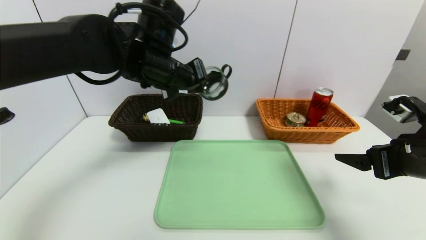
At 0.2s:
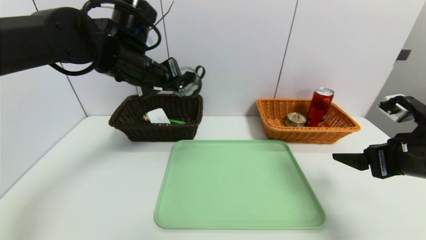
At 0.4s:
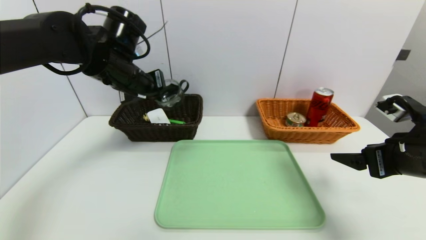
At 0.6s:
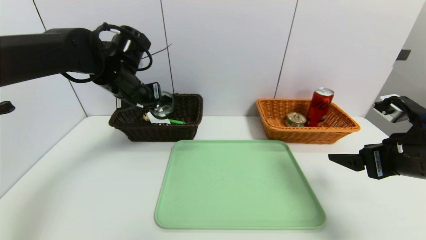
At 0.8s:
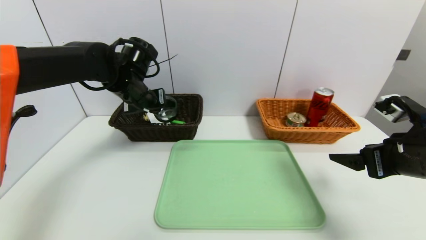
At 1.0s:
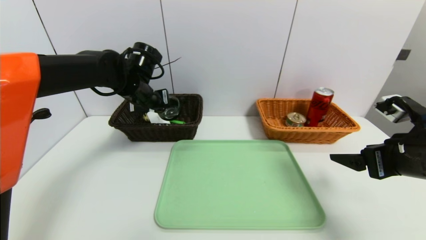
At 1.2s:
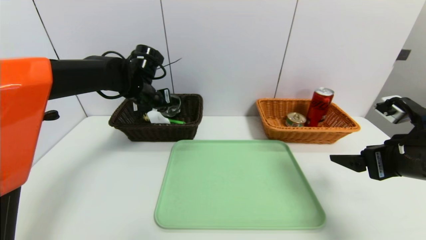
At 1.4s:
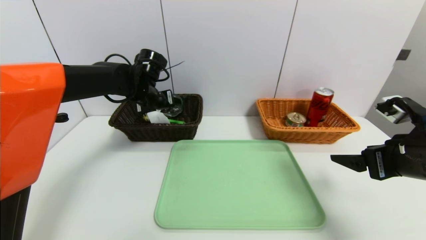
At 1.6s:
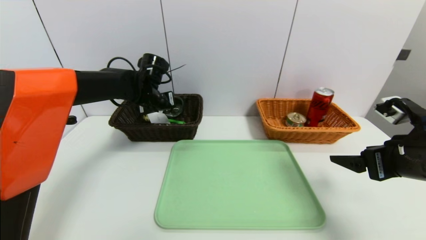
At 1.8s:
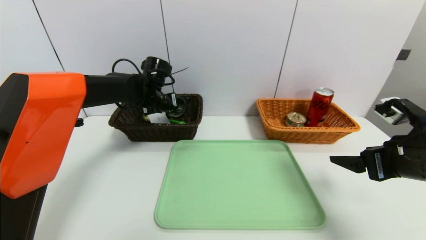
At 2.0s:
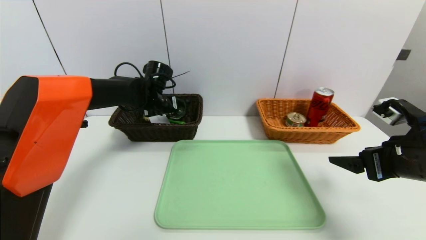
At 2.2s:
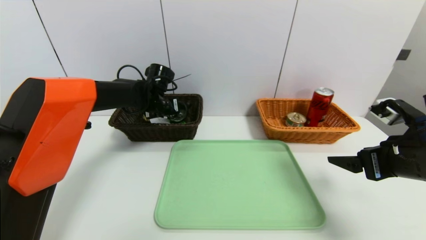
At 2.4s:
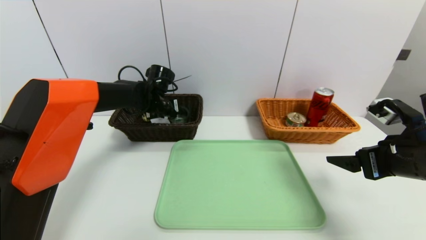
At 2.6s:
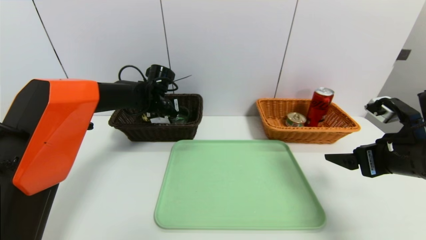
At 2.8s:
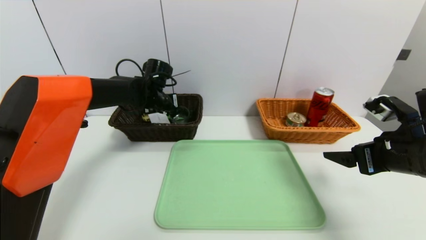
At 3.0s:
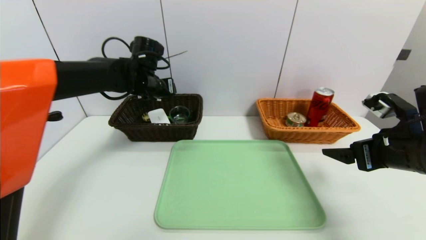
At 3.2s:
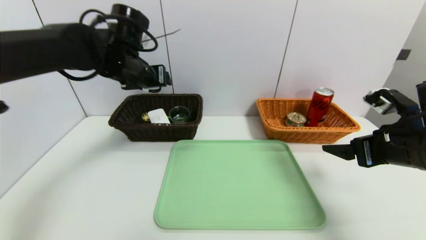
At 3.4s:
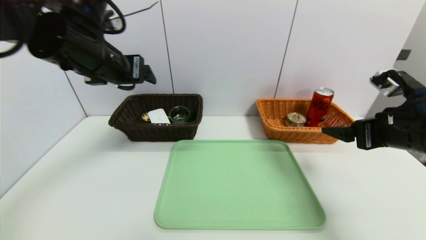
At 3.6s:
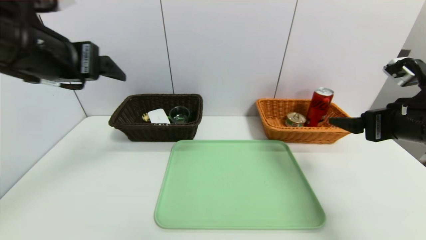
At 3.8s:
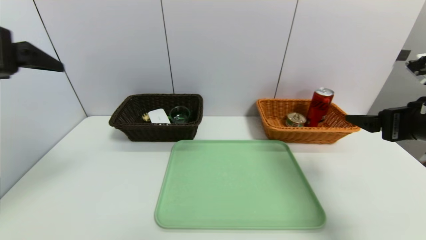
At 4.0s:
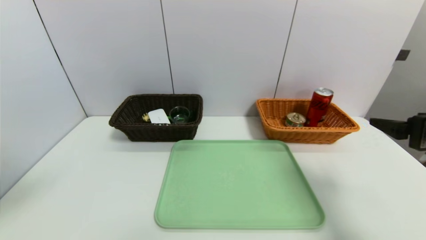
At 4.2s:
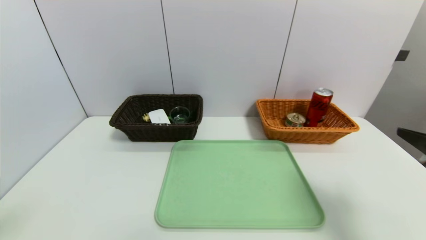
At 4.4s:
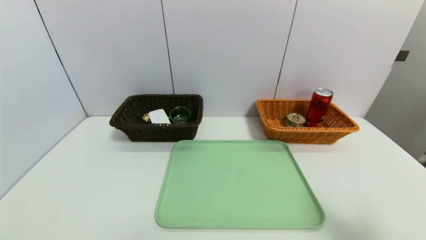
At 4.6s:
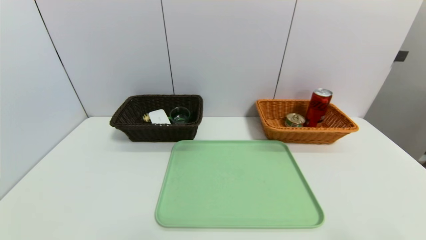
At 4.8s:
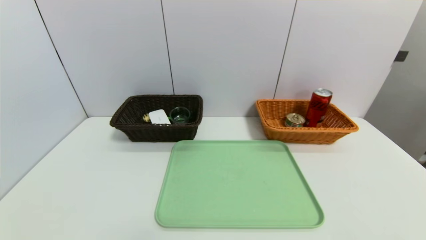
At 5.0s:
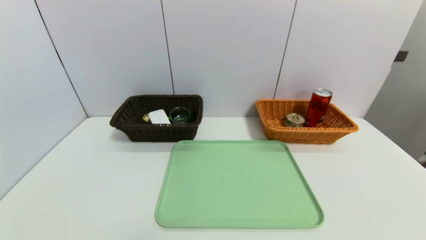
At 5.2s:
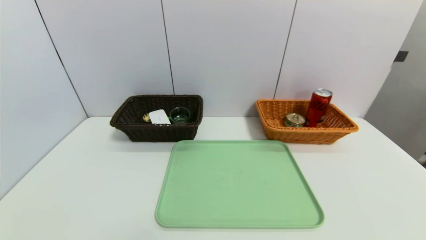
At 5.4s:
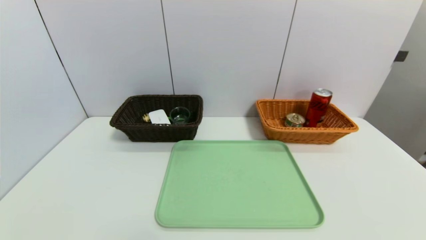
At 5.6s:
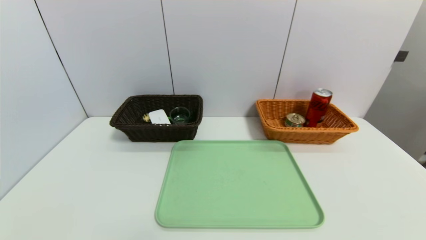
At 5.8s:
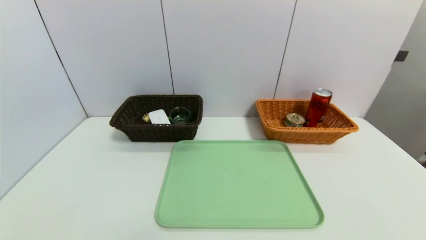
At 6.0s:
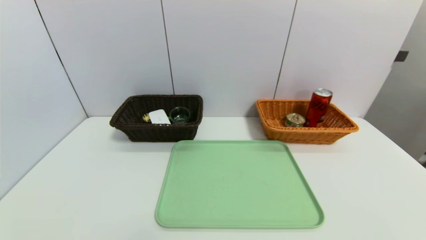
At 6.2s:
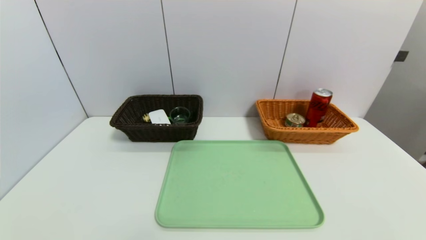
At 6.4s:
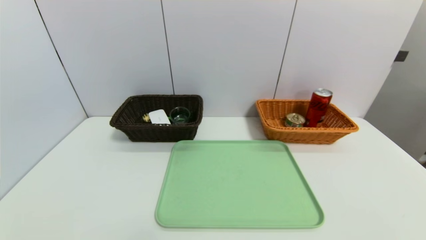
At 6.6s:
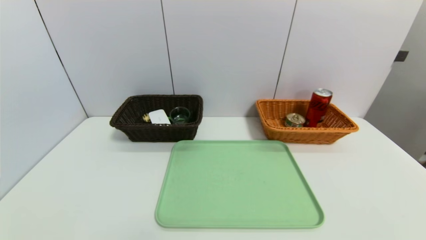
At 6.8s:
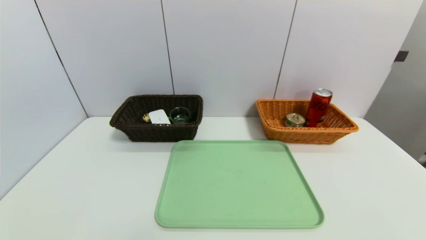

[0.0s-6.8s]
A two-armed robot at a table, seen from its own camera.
Task of the whole recording: place the food in the right basket with the right gripper, and place the non food items in the left basket with the left gripper.
Step, 0.0s to 3.0s: Grasp the black glass cup and put it in the left basket.
0.0s to 1.4s: The left gripper is displaced forward, downward and to the left by some 15 cm.
1.4s to 2.8s: The left gripper opens up.
2.8s to 4.0s: The right gripper moves upward, roughly 5 cm; the left gripper heads backward and upward, covering some 40 cm.
4.0s to 5.4s: The right gripper shifts about 25 cm backward and downward. The left gripper travels downward and backward by roughly 25 cm.

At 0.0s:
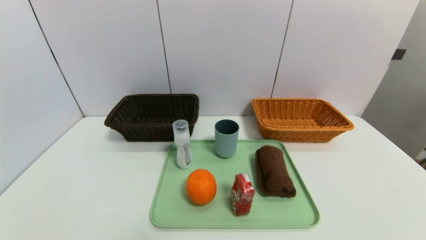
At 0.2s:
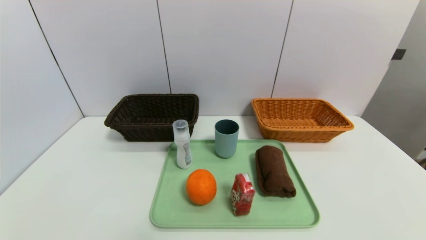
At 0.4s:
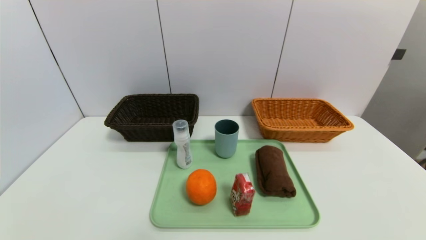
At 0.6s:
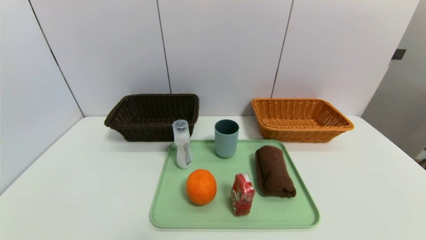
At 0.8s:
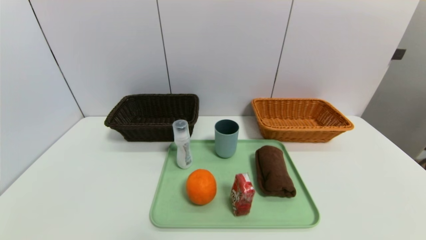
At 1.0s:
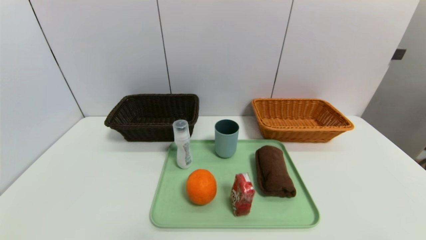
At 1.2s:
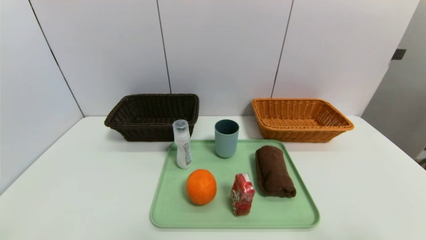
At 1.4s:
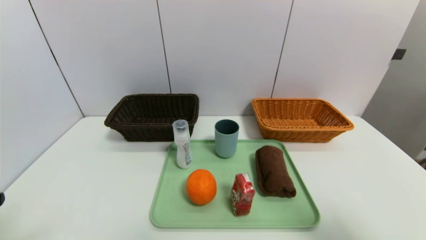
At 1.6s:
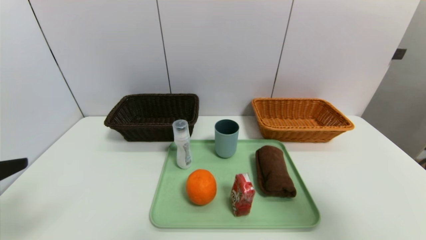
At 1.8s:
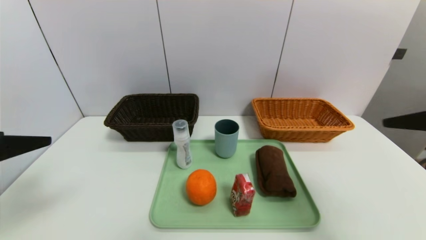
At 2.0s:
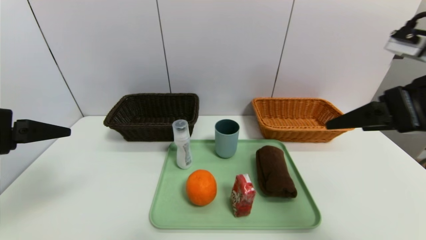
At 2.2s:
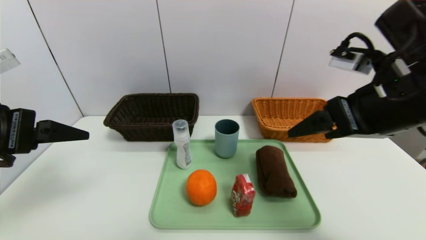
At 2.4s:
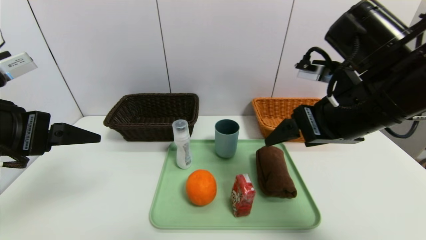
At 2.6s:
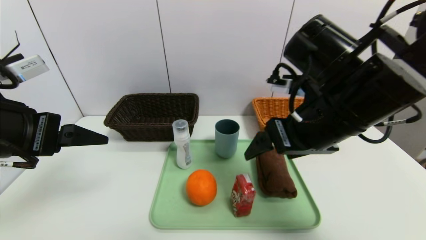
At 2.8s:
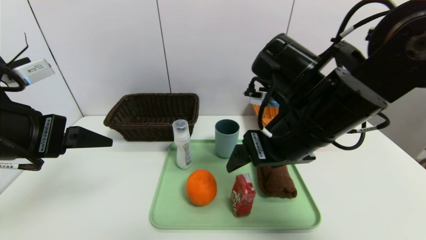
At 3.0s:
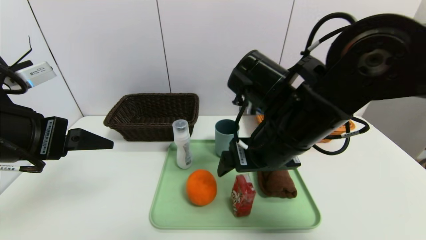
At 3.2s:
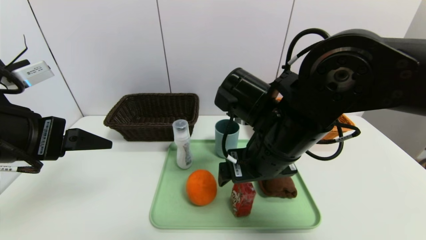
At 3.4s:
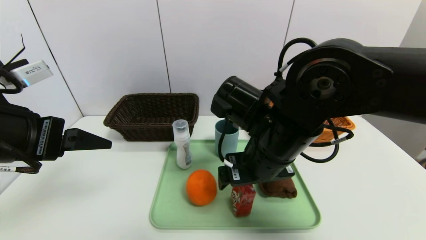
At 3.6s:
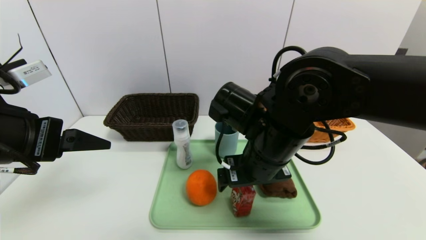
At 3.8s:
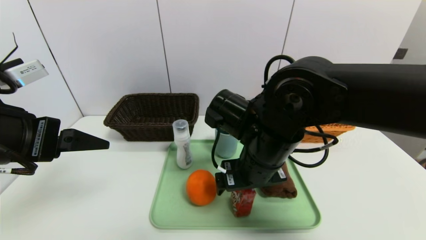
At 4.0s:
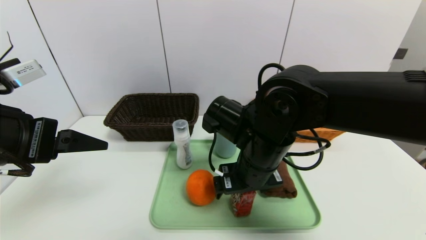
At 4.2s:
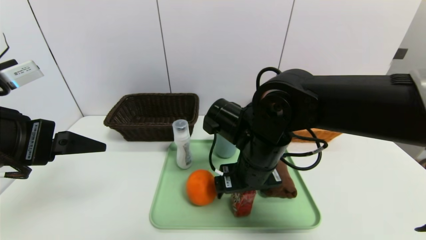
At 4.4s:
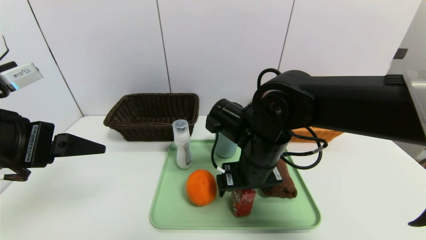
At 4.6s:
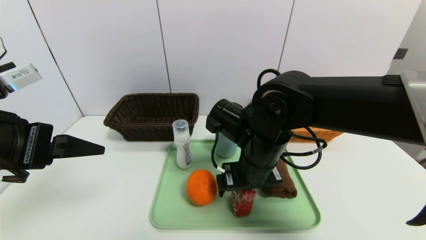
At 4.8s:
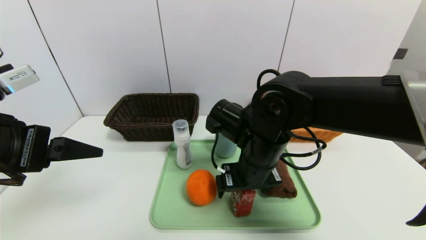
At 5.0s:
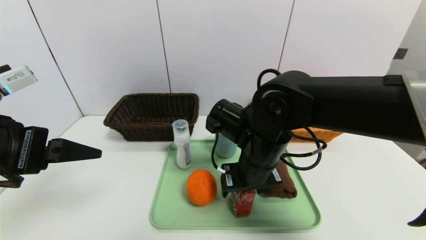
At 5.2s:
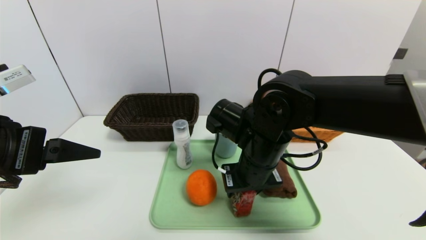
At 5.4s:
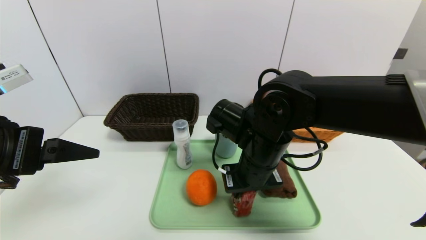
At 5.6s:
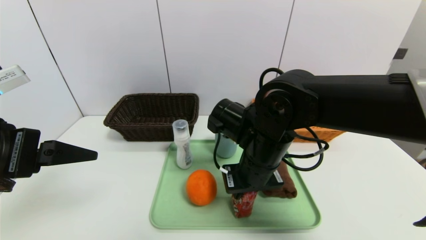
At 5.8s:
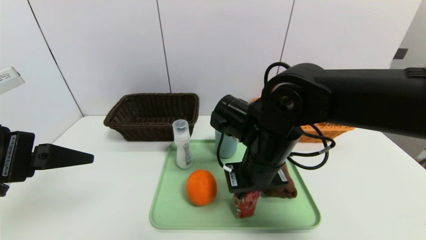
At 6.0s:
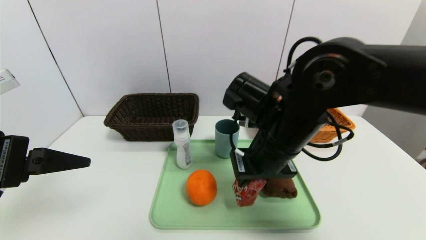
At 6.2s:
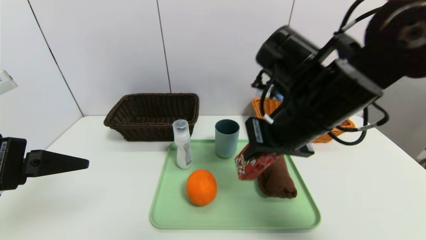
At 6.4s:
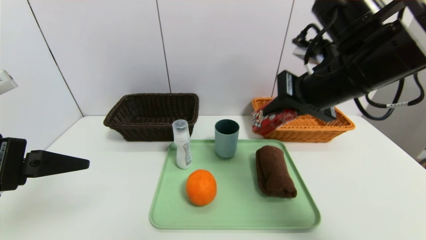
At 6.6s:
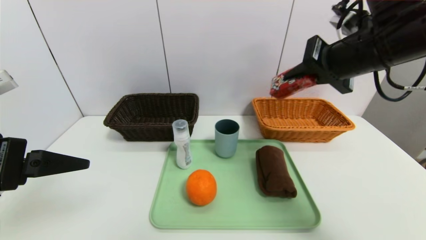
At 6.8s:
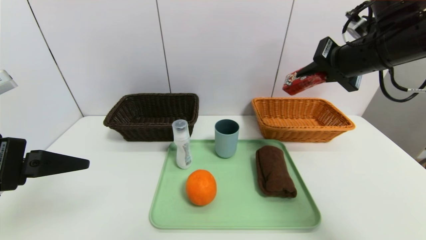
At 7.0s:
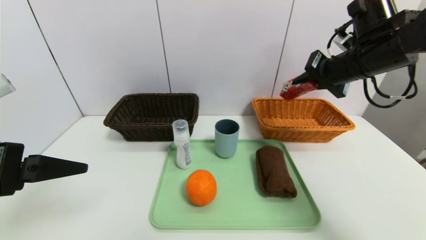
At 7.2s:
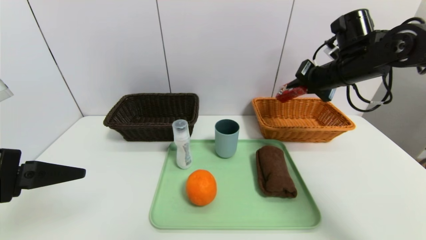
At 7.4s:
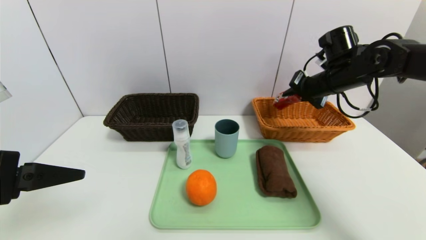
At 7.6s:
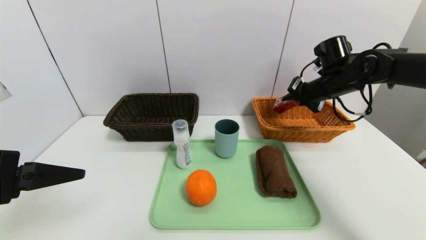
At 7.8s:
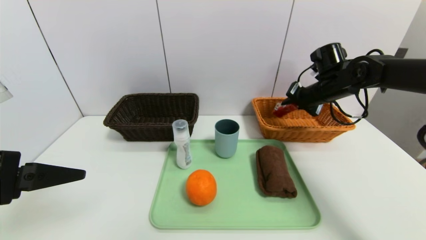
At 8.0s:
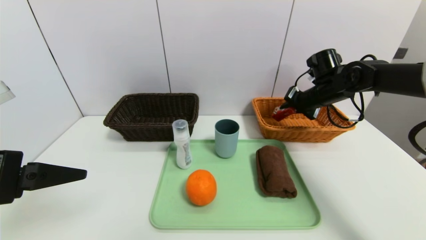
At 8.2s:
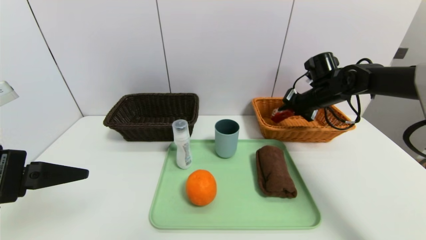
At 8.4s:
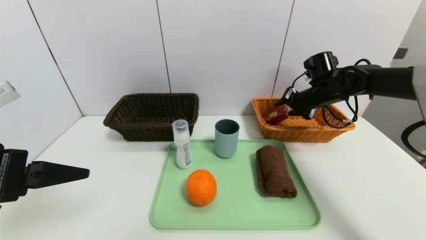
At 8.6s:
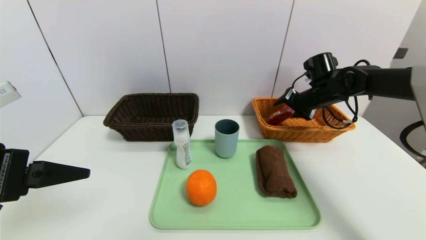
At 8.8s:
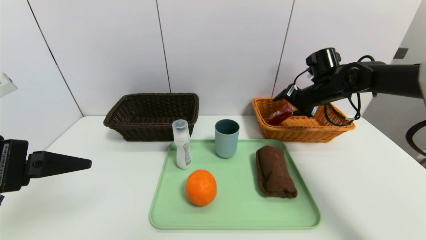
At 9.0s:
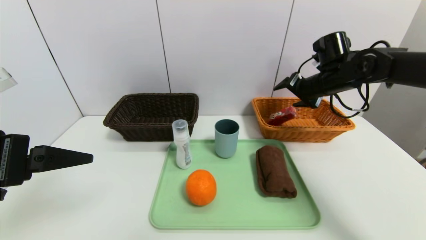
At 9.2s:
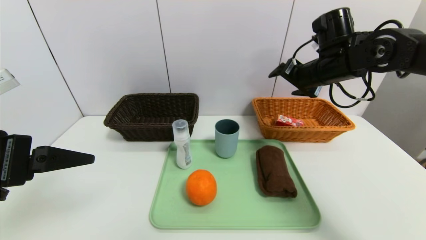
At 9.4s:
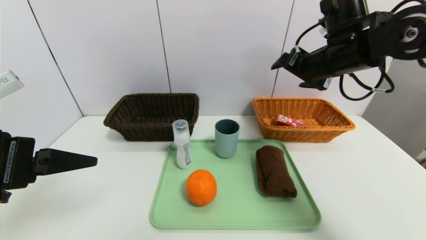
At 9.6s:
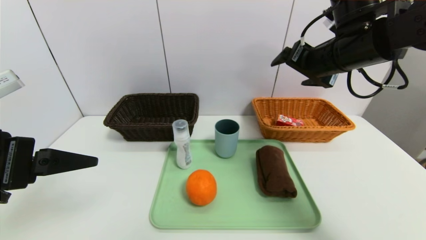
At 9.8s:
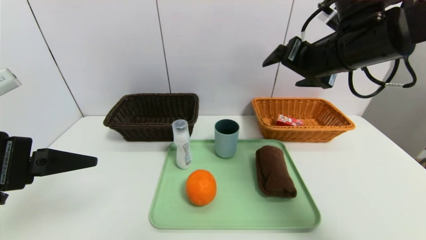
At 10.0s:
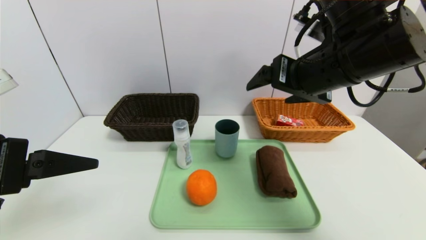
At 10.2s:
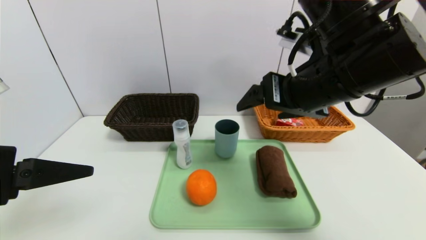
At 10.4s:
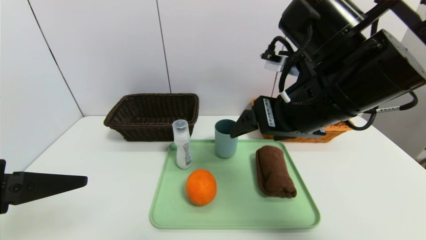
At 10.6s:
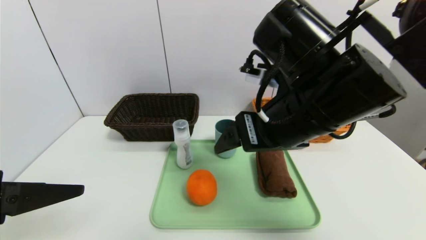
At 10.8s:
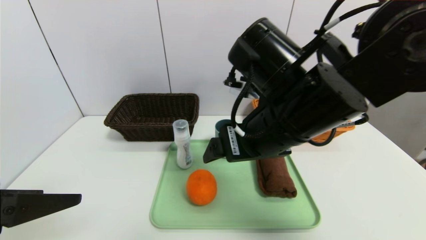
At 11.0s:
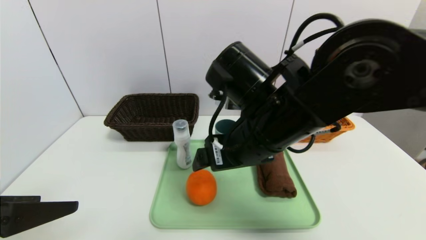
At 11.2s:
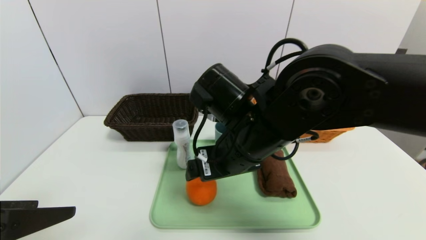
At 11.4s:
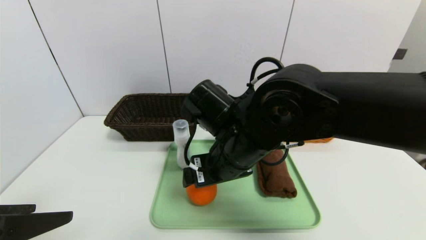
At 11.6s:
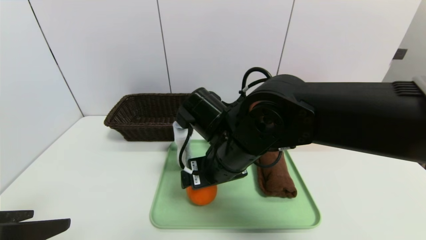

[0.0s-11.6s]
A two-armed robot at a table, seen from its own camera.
Task of the whole recording: place the food in the right basket with the right gripper, and place the non food items in the left basket with the left gripper.
Step, 0.0s to 9.0s: Grasp the ad milk and put it in the right basket.
0.0s to 1.4s: The right gripper goes roughly 25 cm upward.
1.4s to 2.8s: The right gripper travels to the left and forward by about 30 cm; the left gripper goes roughly 15 cm forward.
2.8s to 4.4s: The right gripper moves downward, some 10 cm.
4.4s to 5.8s: The right gripper closes its fingers.
5.8s to 7.2s: The right gripper heads to the right, forward and upward, covering about 25 cm.
7.2s to 8.8s: The right gripper moves downward and forward, roughly 10 cm, and opens.
8.8s to 10.2s: The right gripper goes roughly 25 cm backward, to the left and upward.
10.2s to 11.6s: The left gripper ends up roughly 5 cm from where it was. Meanwhile the right gripper shifts roughly 15 cm to the left and downward.
